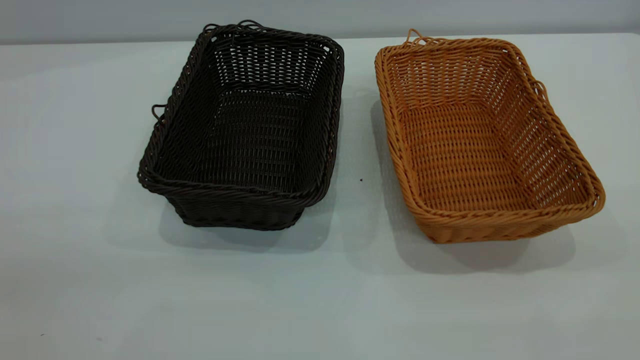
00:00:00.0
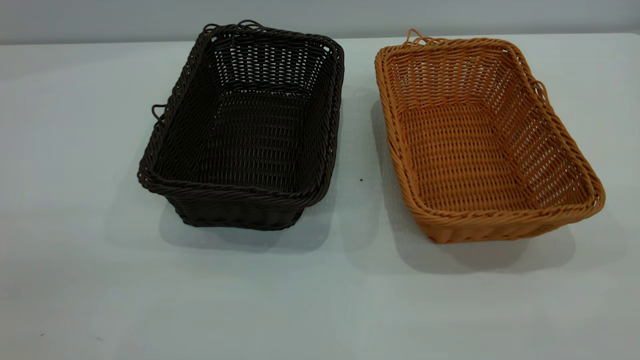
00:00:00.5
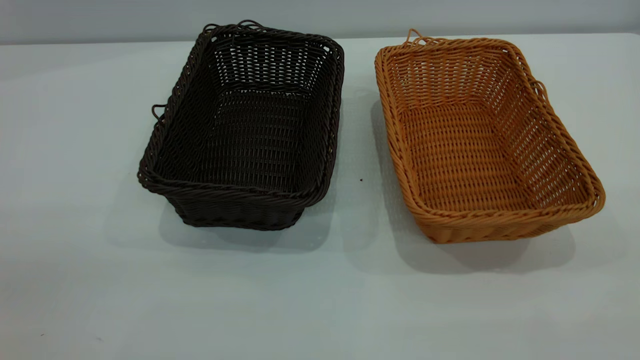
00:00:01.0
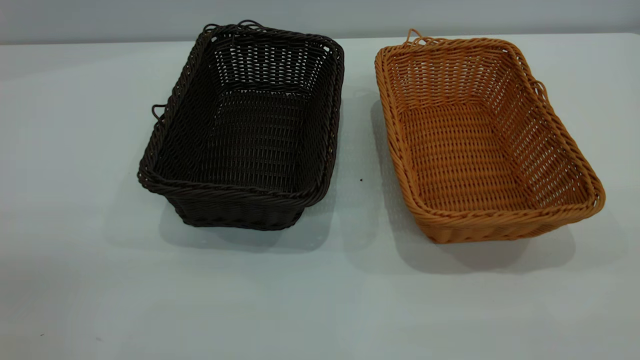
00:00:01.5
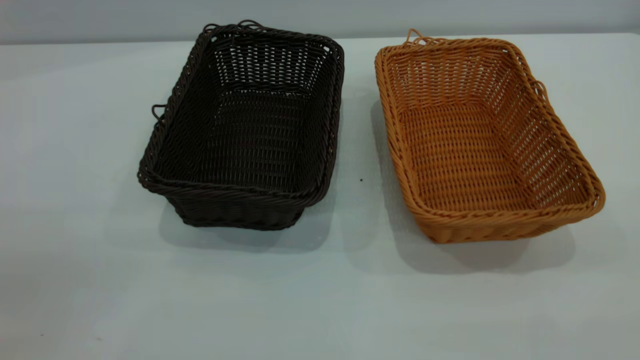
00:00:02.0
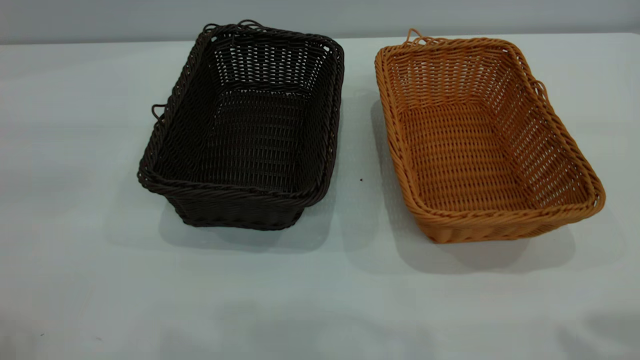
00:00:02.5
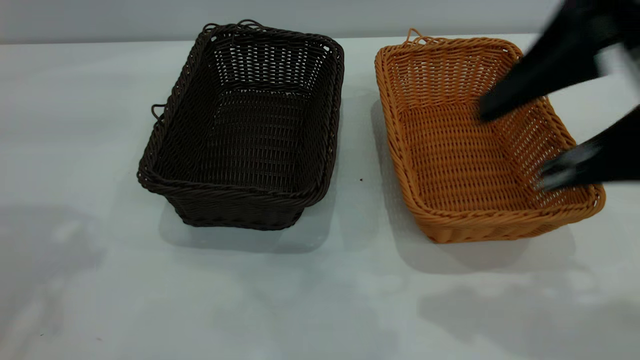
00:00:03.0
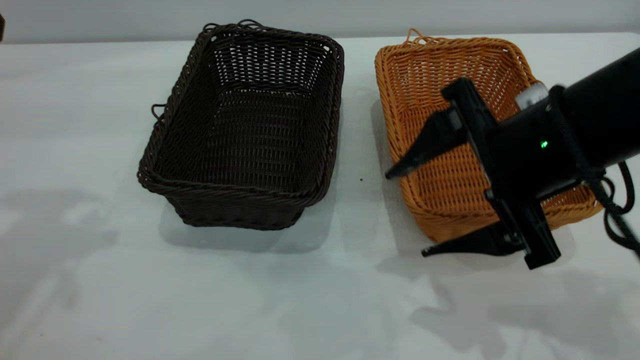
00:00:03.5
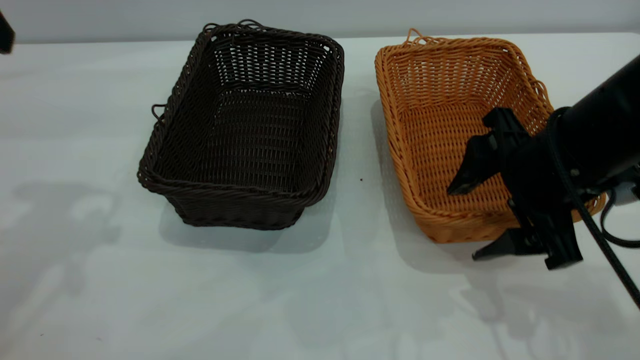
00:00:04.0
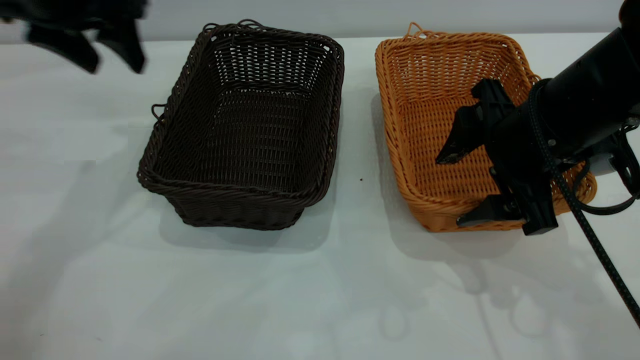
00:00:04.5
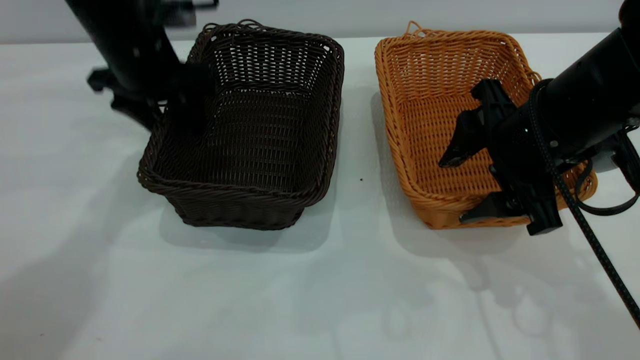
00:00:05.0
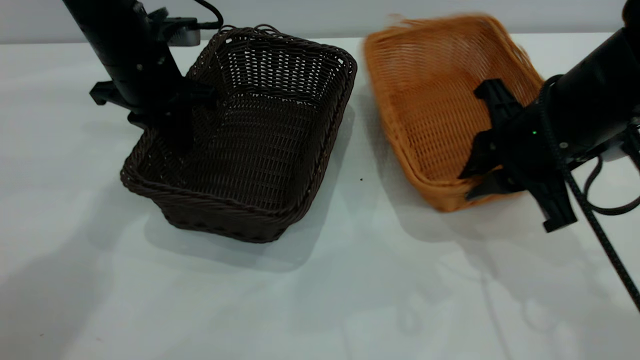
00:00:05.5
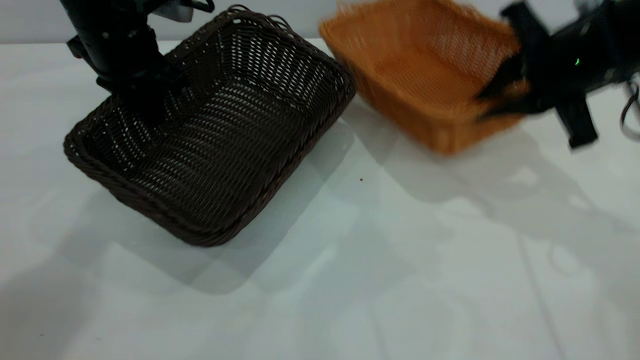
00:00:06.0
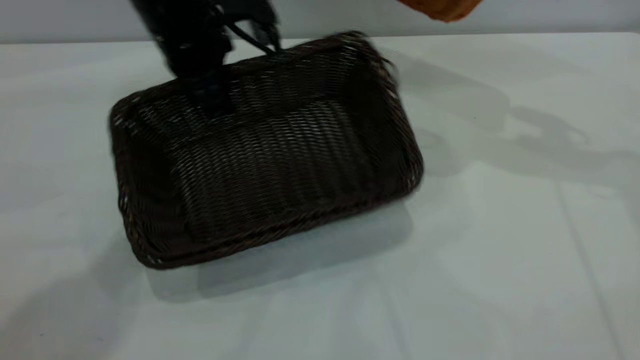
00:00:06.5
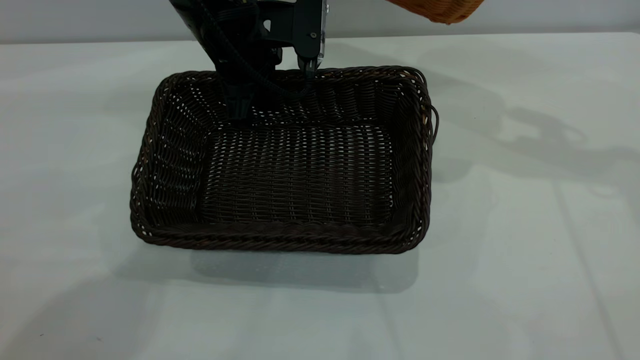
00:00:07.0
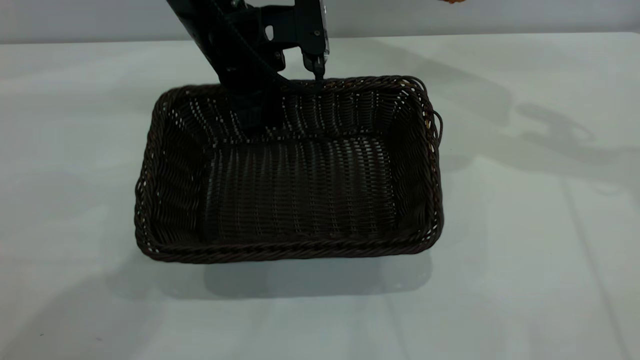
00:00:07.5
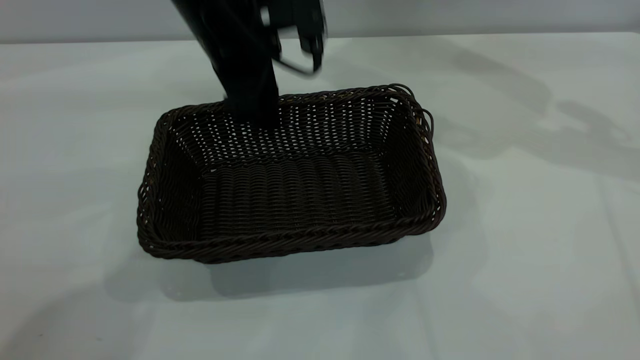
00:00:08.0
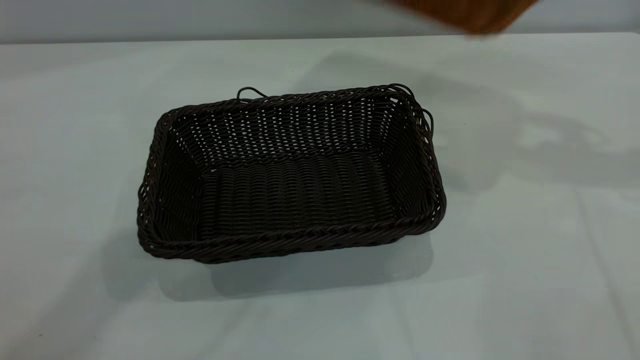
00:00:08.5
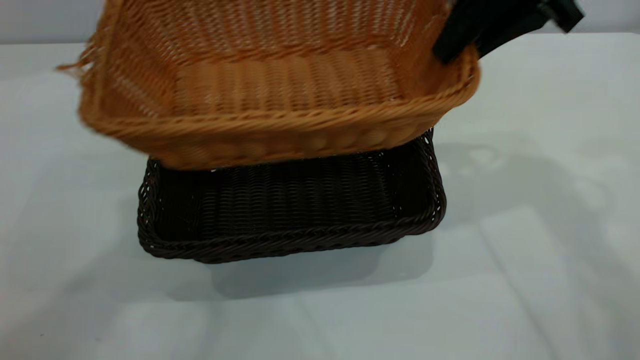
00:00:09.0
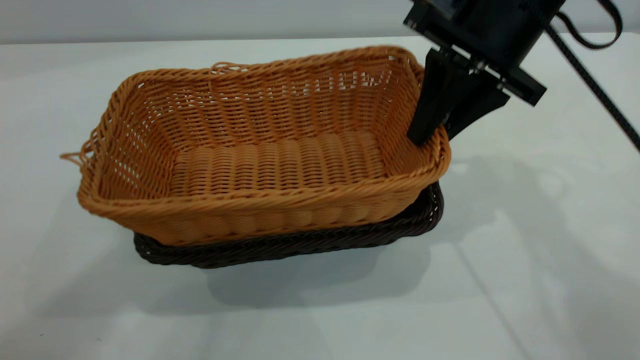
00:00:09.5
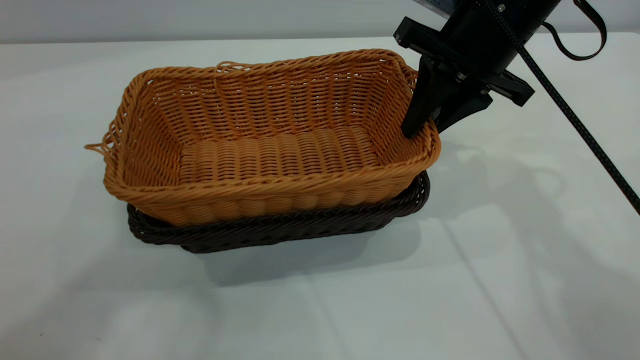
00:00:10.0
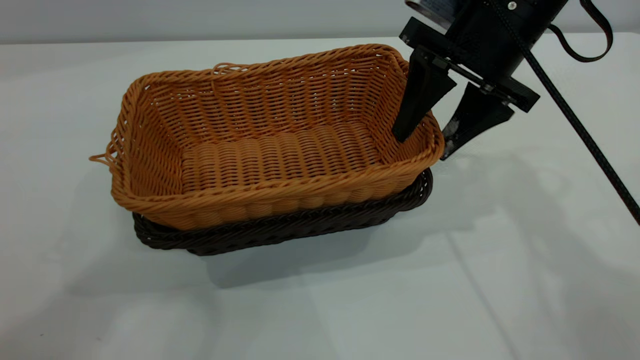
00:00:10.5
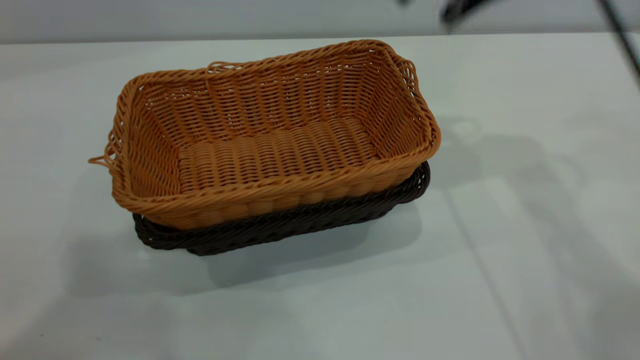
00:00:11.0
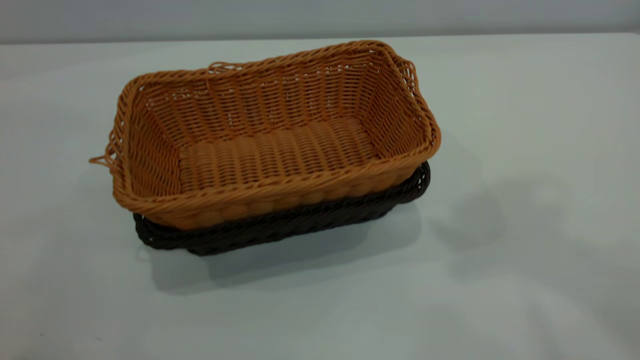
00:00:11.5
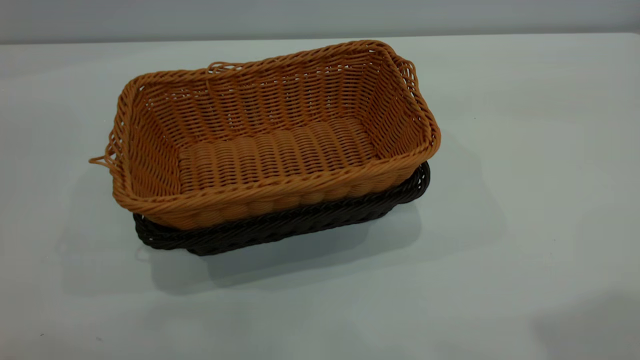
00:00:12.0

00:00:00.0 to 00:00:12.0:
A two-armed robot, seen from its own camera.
Task of the whole recording: the left gripper grasp the black basket and place it in the center of the table, the right gripper grasp the brown basket and place it inside the black one.
Step, 00:00:00.0 to 00:00:06.0: Pick up the light basket with the right gripper.
Step, 00:00:06.5 to 00:00:08.0: Move the dark basket to the center of view.
Step, 00:00:08.5 to 00:00:10.5: Place the light basket on the dark basket.
00:00:00.0 to 00:00:02.0: Both grippers stay put.
00:00:02.0 to 00:00:04.0: The right gripper travels forward and downward by approximately 35 cm.
00:00:04.0 to 00:00:06.0: The left gripper goes roughly 20 cm downward, forward and to the right, and closes, while the right gripper travels forward and upward by about 10 cm, and closes.
00:00:06.0 to 00:00:08.0: The left gripper moves to the right, approximately 10 cm, and opens up; the right gripper shifts approximately 15 cm upward, to the right and forward.
00:00:08.0 to 00:00:10.0: The left gripper moves upward and backward, approximately 40 cm; the right gripper shifts about 20 cm to the left and downward.
00:00:10.0 to 00:00:12.0: The left gripper goes roughly 20 cm backward and to the left. Meanwhile the right gripper is displaced upward and backward by roughly 40 cm, and opens.
